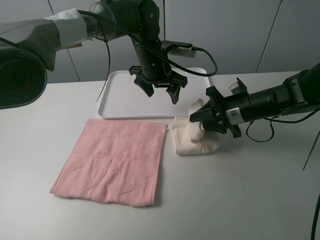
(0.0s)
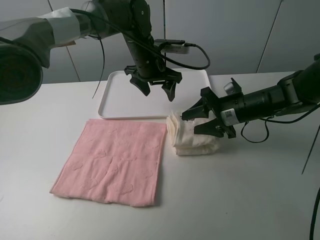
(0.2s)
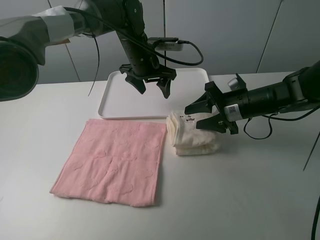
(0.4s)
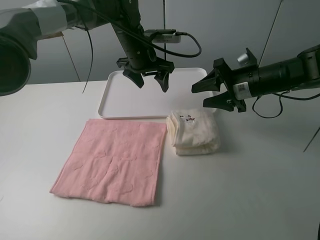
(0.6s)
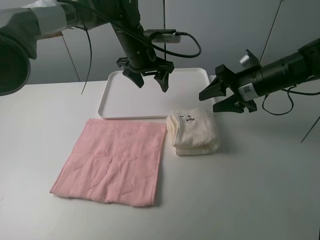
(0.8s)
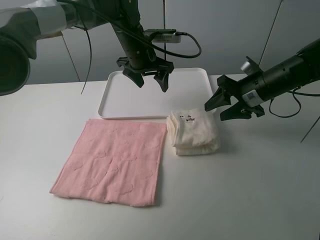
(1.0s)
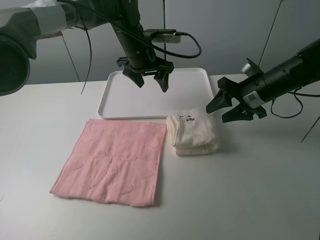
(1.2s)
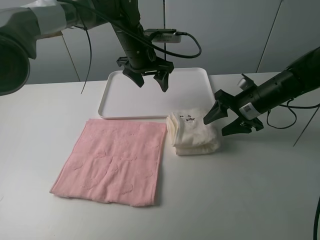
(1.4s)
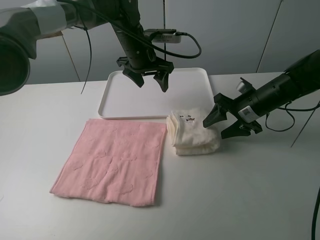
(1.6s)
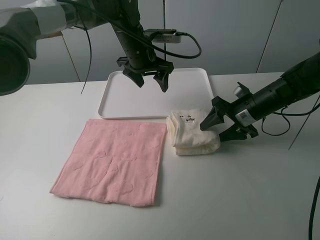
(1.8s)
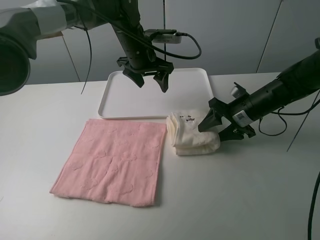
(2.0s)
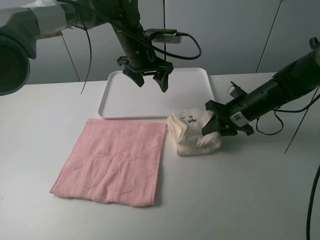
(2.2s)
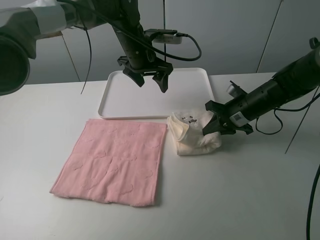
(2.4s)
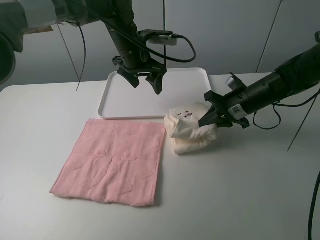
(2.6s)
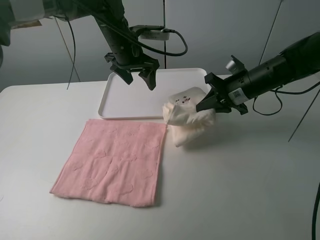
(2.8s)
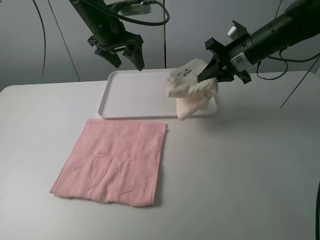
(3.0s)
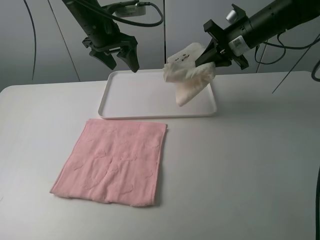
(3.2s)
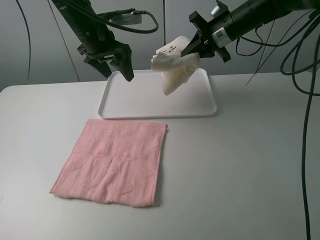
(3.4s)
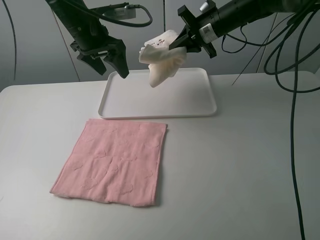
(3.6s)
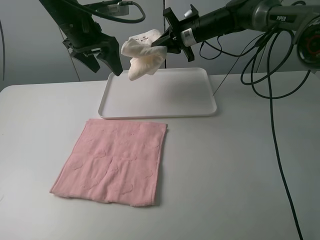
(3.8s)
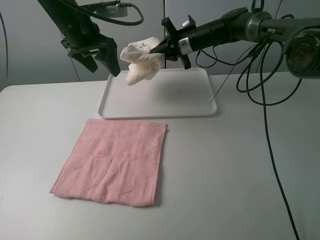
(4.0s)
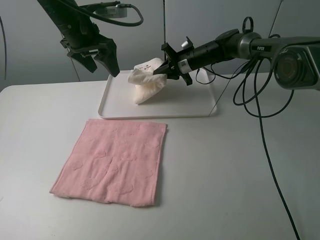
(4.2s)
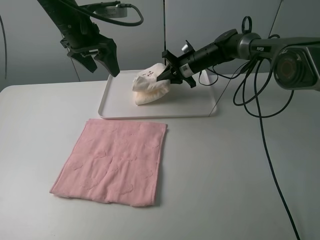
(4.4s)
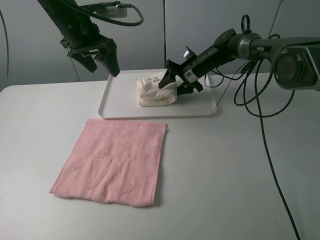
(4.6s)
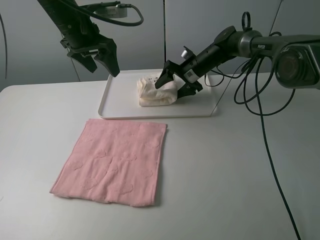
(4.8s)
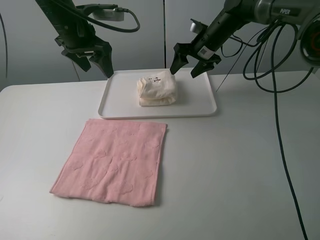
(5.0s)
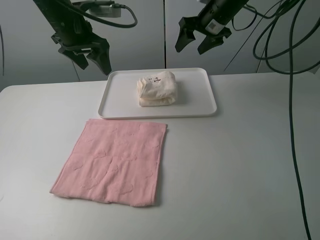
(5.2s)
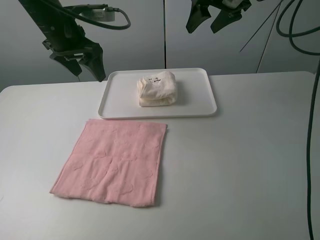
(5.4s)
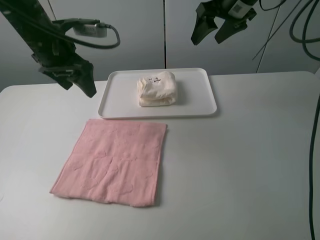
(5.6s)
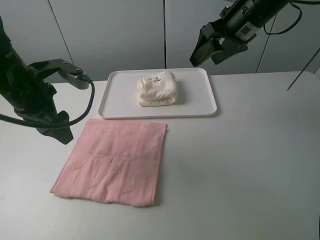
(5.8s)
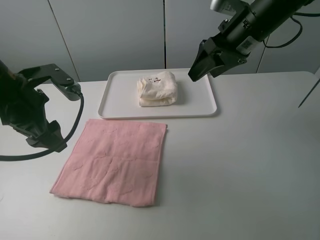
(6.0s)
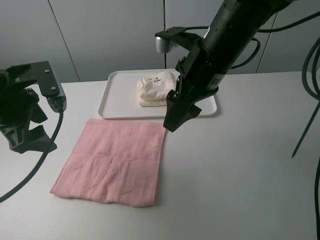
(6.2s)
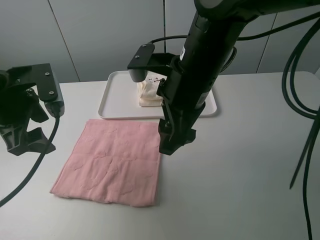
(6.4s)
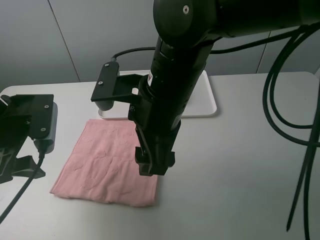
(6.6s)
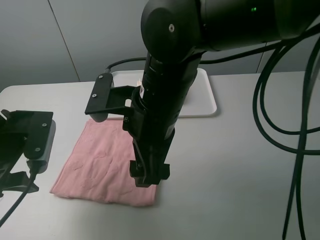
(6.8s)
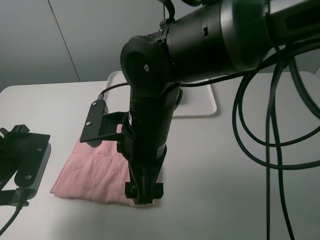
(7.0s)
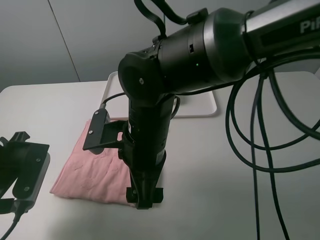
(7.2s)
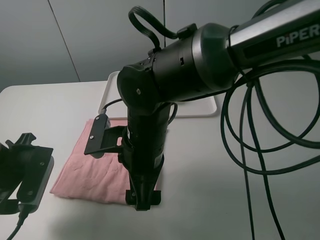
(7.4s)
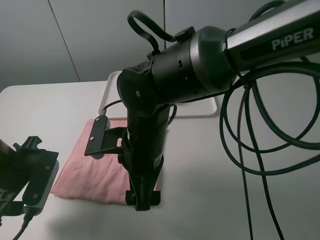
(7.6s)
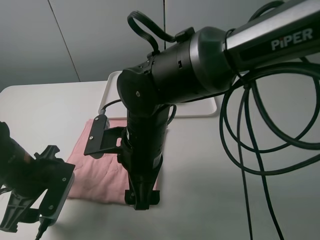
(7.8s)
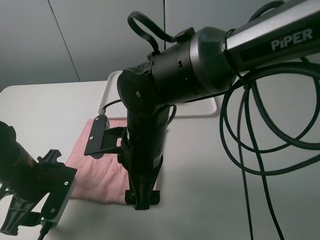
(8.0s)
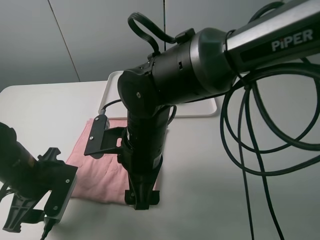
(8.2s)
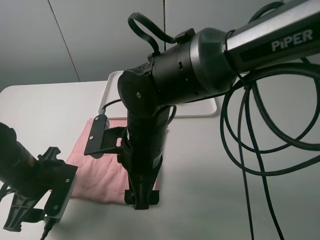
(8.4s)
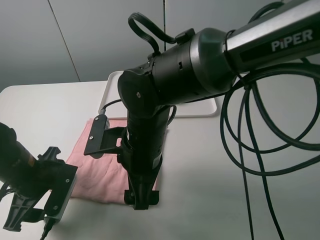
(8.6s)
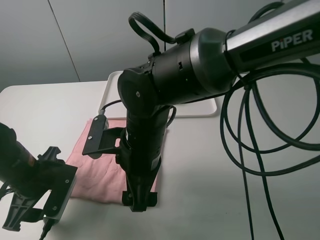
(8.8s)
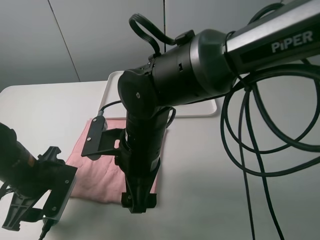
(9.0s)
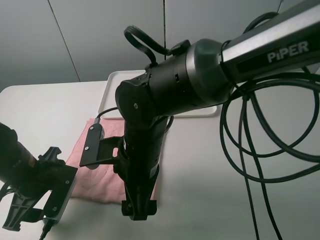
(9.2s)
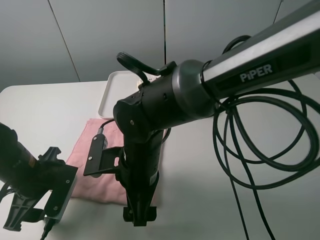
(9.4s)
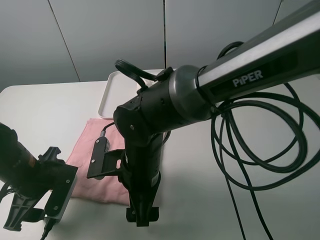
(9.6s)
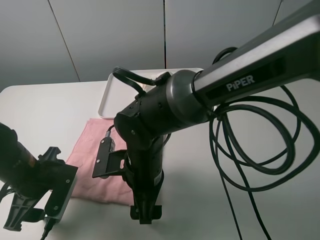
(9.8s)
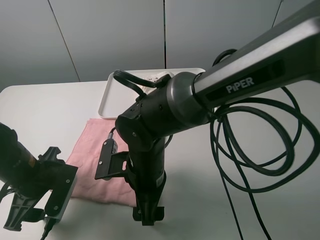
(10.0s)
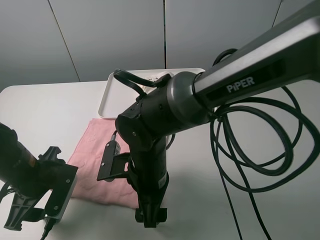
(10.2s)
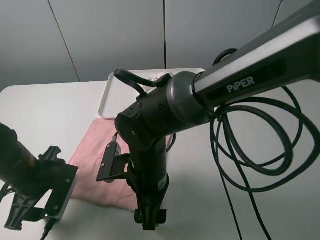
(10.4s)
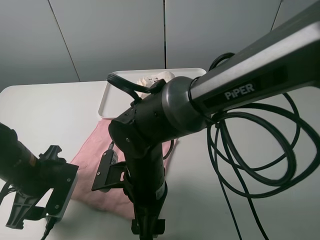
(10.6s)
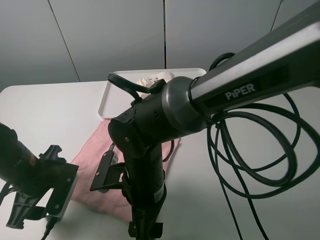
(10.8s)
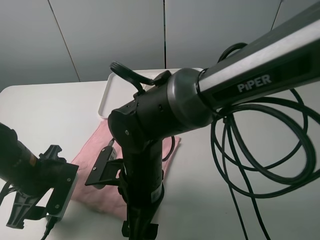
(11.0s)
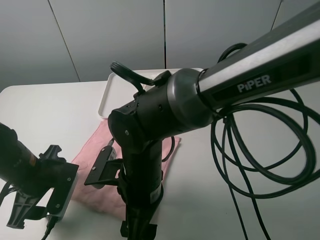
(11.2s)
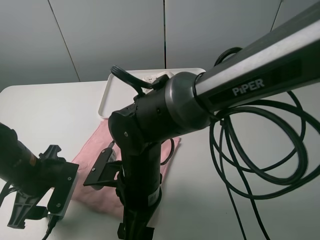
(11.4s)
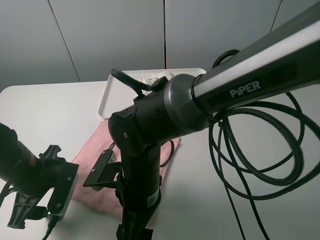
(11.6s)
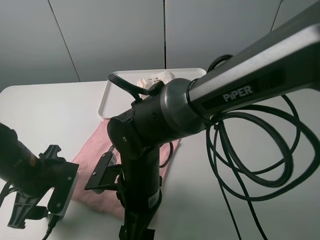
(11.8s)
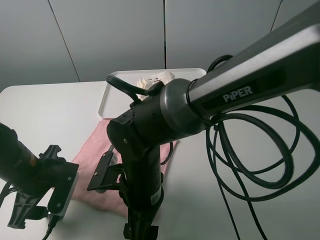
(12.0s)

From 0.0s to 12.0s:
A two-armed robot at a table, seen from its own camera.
Task of the whole recording: fold one of the towels by two grippers and place it on the tray,then fold another towel by two grippers and place it on the folded towel.
Step, from 0.4s to 2.4s: Grasp the white towel with the right gripper.
Step, from 2.6s to 5.0s: Move the white towel to the plate with the right gripper.
From 1.6s to 3.0s: The right gripper shifts some 10 cm upward and forward, and closes up. Meanwhile the left gripper is displaced to the left and upward by some 10 cm.
From 3.0s to 4.4s: The left gripper moves roughly 5 cm, while the right gripper travels forward, downward and to the left by about 20 cm.
From 4.4s to 6.0s: The right gripper is displaced backward and upward by approximately 25 cm, and opens, while the left gripper shifts some 20 cm backward and to the left.
From 6.0s to 7.6s: The right gripper shifts about 25 cm to the left, backward and downward, while the left gripper heads downward and backward, covering approximately 10 cm.
From 7.6s to 9.0s: The grippers move only a little.
From 9.0s to 10.4s: The right gripper moves roughly 5 cm.

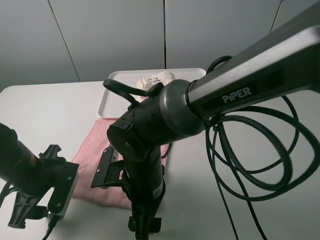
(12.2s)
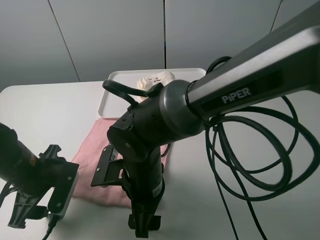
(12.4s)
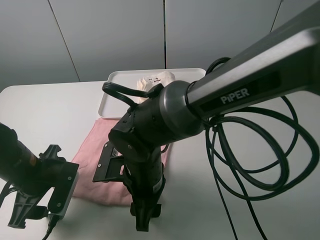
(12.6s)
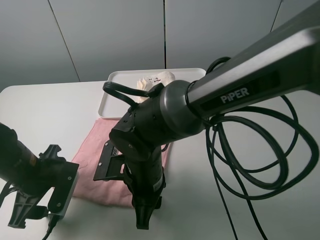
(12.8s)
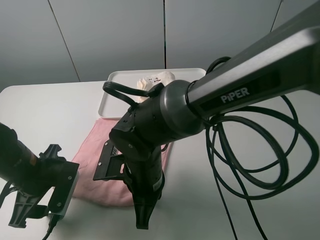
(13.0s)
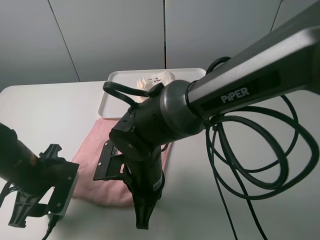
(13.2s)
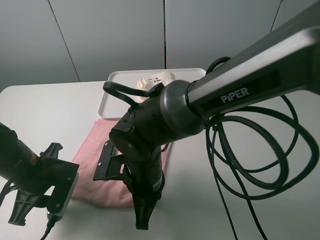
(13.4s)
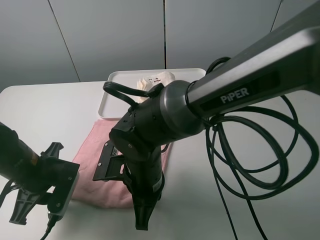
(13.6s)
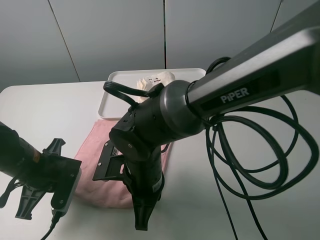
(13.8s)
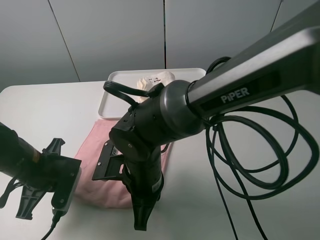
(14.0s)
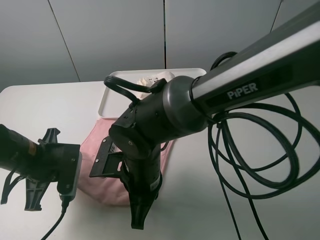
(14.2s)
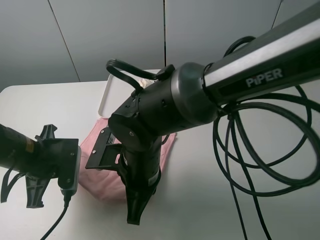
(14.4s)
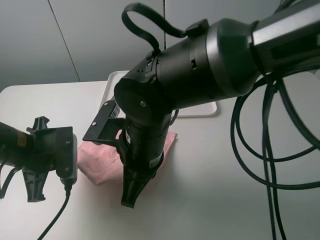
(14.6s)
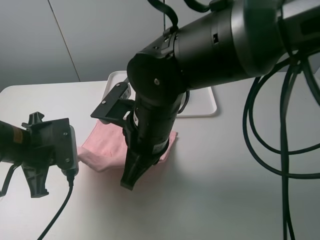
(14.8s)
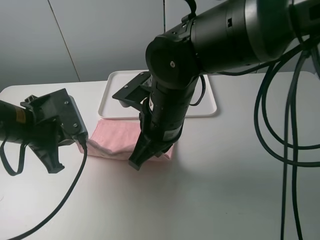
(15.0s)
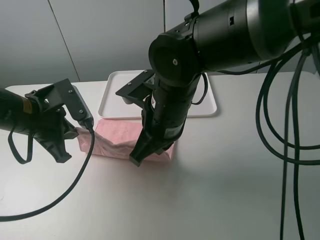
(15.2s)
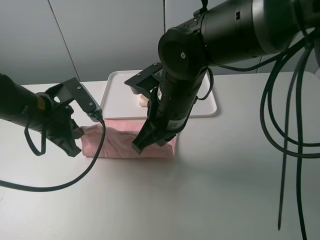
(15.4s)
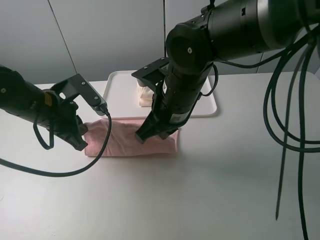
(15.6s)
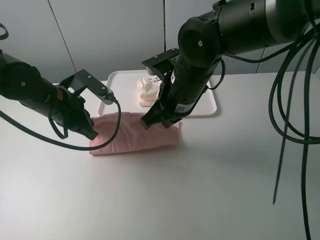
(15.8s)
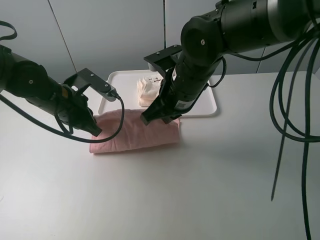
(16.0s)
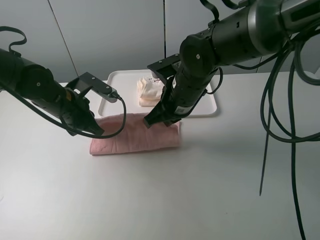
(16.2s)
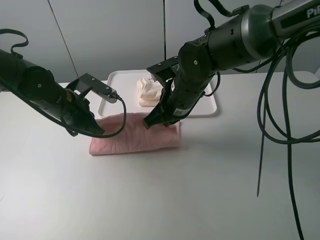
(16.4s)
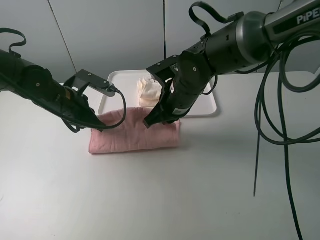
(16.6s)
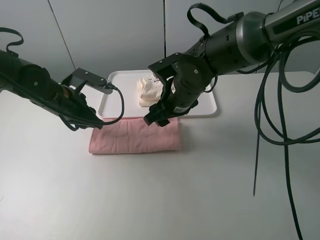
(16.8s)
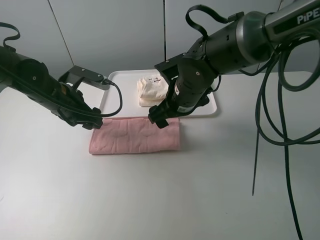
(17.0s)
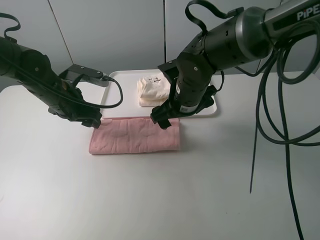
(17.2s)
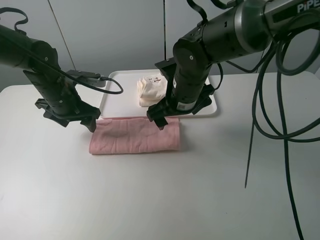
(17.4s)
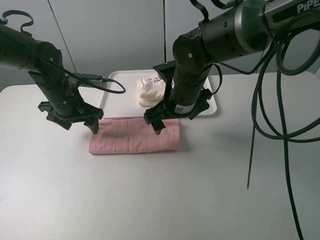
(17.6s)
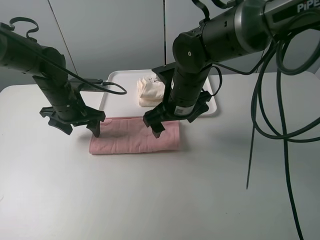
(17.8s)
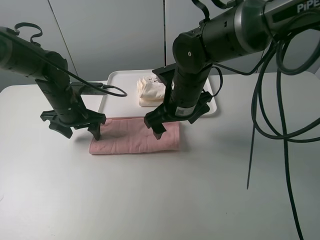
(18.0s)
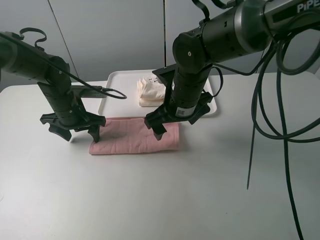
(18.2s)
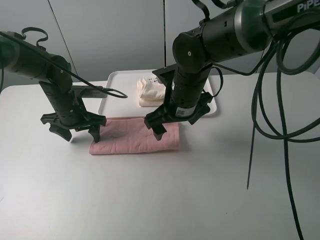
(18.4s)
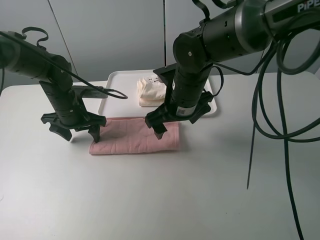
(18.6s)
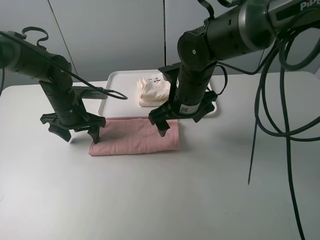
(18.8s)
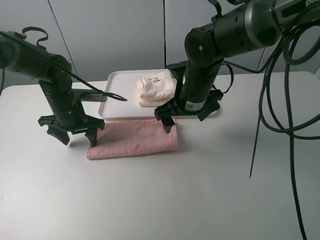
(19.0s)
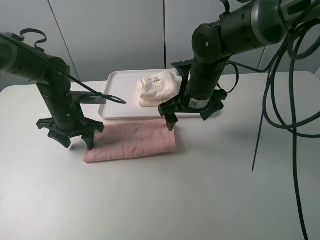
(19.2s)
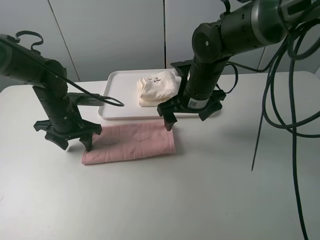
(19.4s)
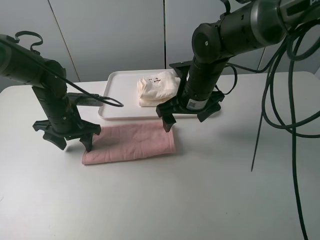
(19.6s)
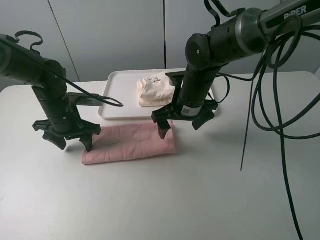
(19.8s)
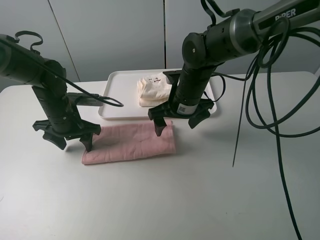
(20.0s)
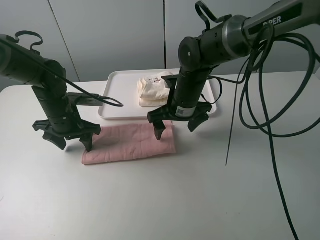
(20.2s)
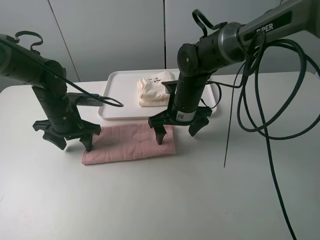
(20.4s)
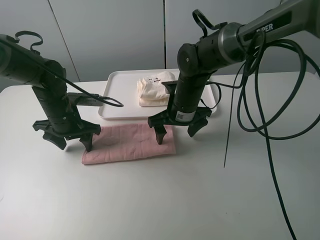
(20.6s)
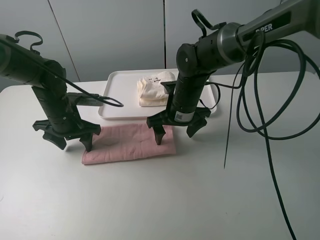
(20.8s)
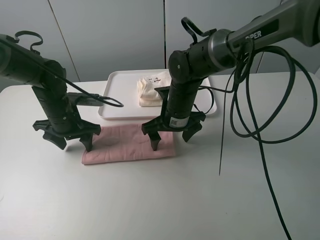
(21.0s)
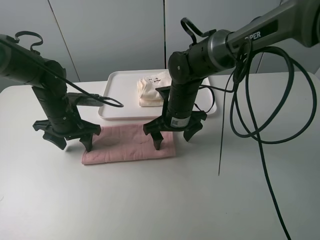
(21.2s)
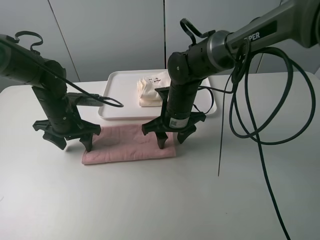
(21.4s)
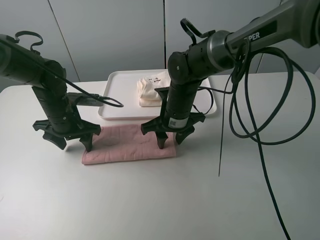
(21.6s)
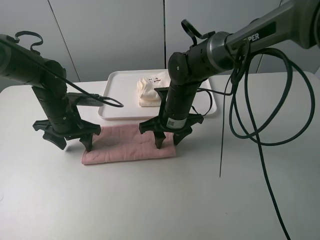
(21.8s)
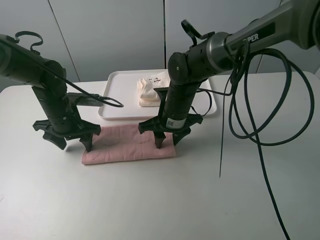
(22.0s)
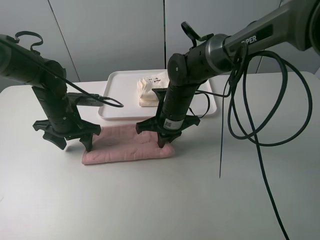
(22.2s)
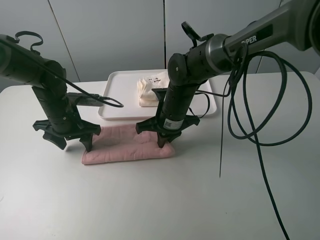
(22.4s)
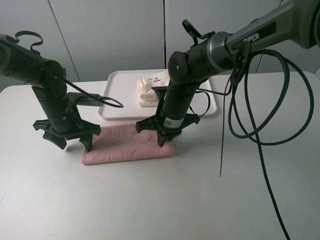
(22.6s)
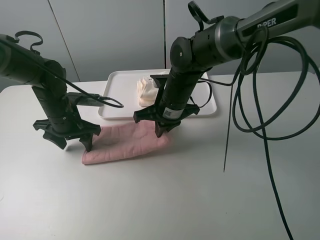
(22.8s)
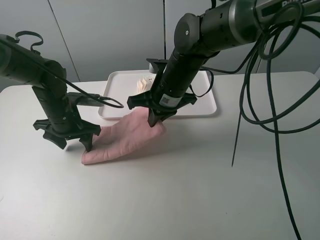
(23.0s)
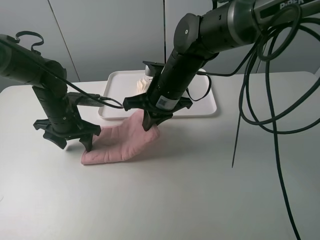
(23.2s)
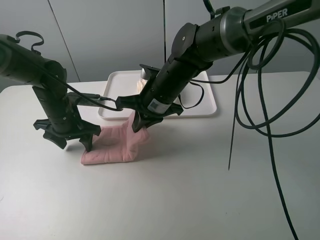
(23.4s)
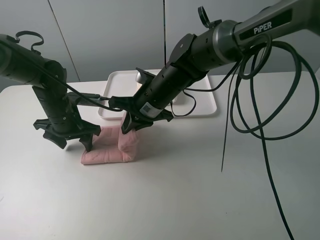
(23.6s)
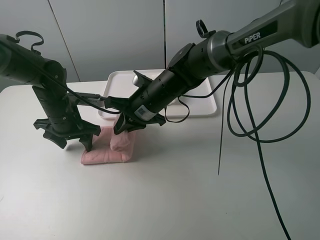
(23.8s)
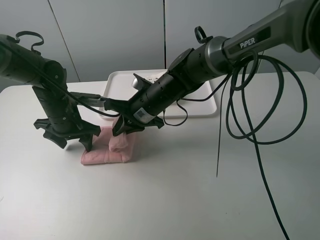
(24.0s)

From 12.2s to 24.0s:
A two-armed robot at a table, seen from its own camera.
Task of the whole recording: fold one of the towels by two grippers and place it on the tray,then fold another towel by two grippers and place it on the folded towel.
Step, from 14.0s to 16.8s: Fold the pink towel upwards with the left gripper.
Step, from 17.2s to 18.8s: Press the pink towel with the left gripper.
Step, from 19.0s to 22.6s: Grasp the pink towel with the right gripper.
From 12.2s to 13.6s: The left gripper closes; the right gripper closes up.
From 13.6s to 15.2s: The right gripper goes some 10 cm upward and forward. Meanwhile the left gripper travels upward by approximately 10 cm, and closes its fingers.
From 15.2s to 16.6s: Both grippers move forward, some 10 cm.
From 16.6s to 18.2s: The left gripper ends up about 5 cm from where it was, and opens. Meanwhile the right gripper opens its fingers.
From 19.6s to 21.0s: The right gripper is displaced downward by some 5 cm.
From 21.0s to 22.6s: The right gripper closes up.
